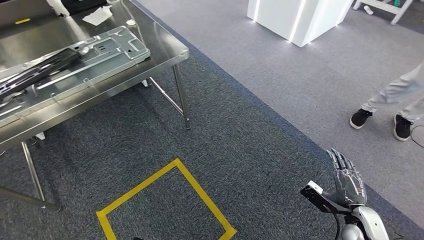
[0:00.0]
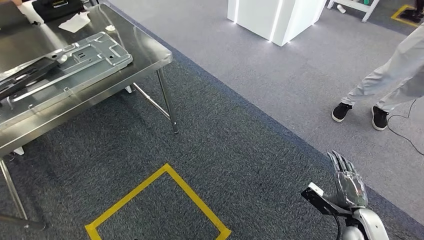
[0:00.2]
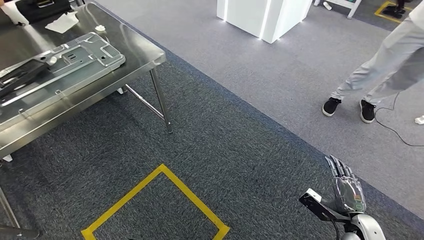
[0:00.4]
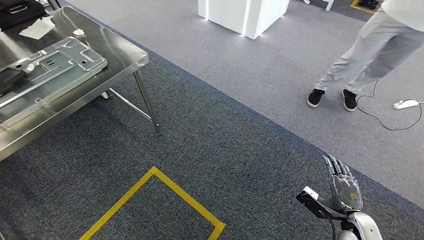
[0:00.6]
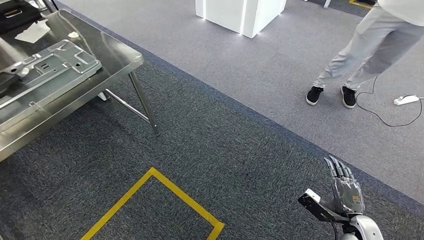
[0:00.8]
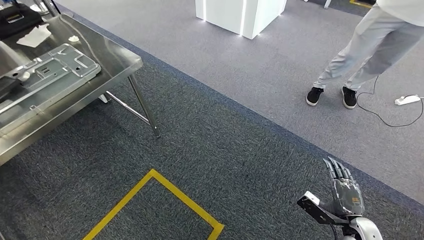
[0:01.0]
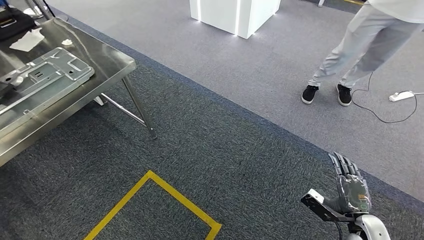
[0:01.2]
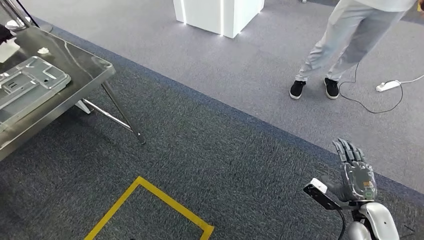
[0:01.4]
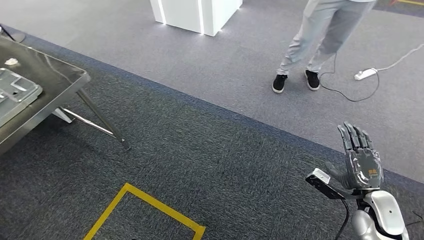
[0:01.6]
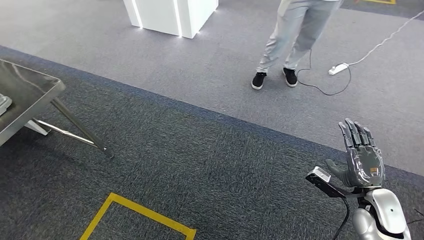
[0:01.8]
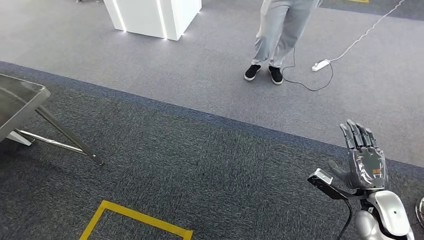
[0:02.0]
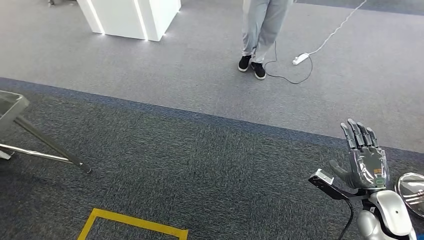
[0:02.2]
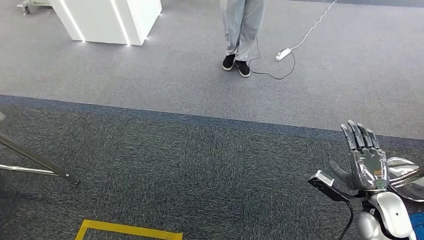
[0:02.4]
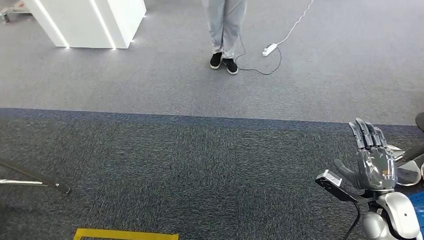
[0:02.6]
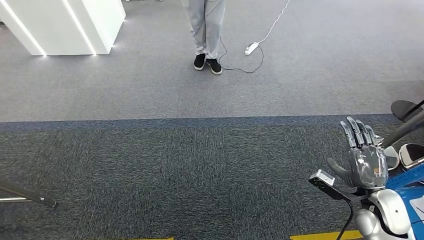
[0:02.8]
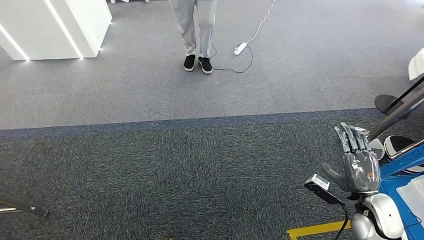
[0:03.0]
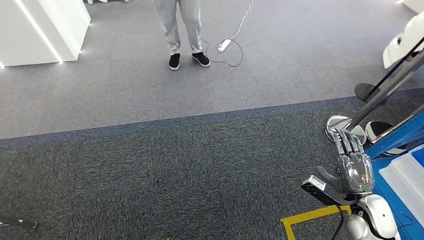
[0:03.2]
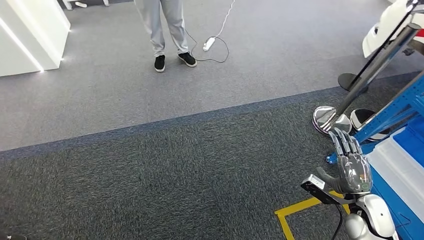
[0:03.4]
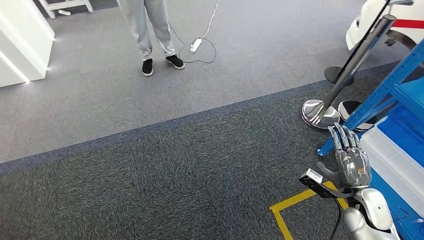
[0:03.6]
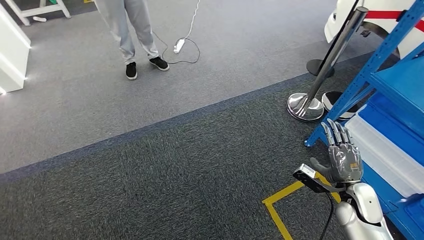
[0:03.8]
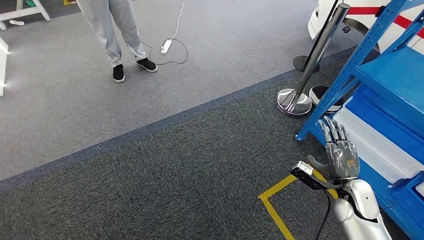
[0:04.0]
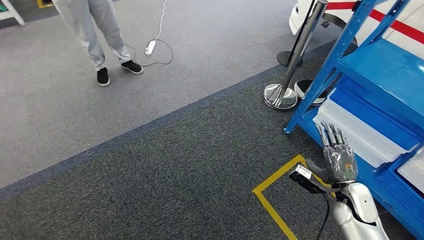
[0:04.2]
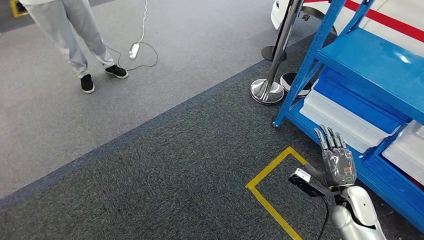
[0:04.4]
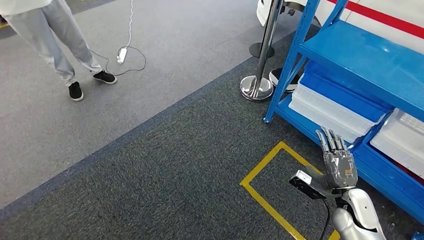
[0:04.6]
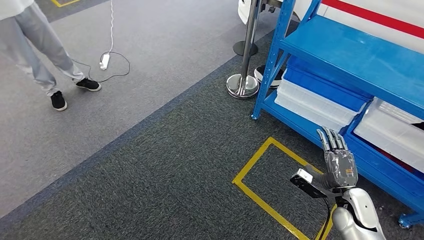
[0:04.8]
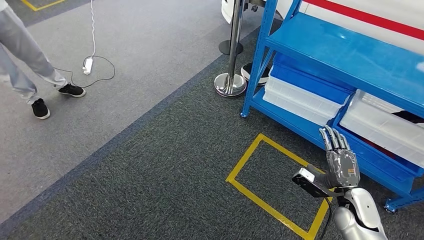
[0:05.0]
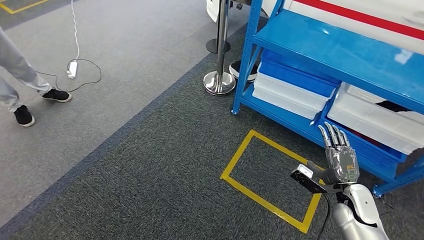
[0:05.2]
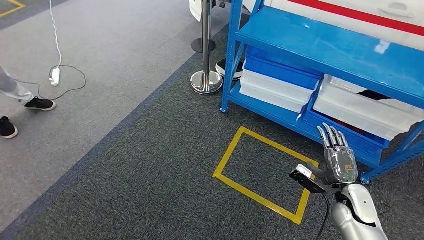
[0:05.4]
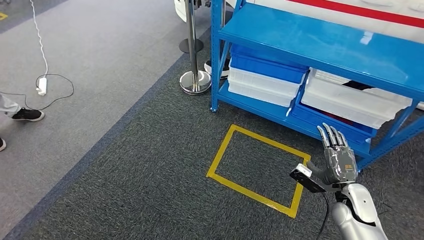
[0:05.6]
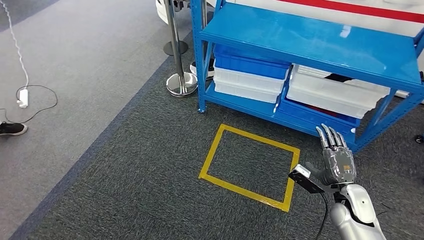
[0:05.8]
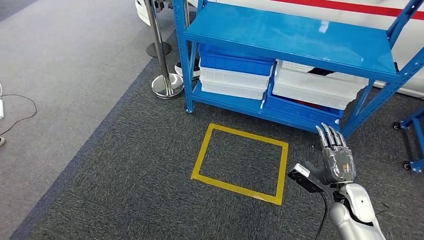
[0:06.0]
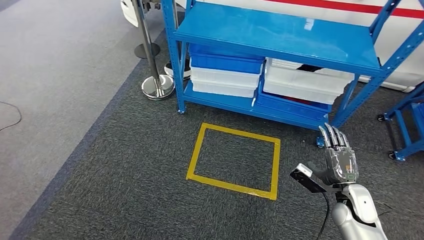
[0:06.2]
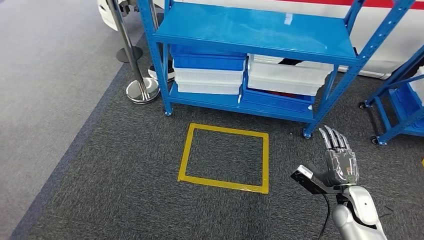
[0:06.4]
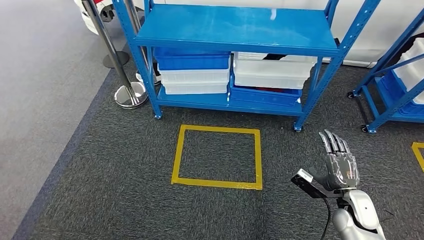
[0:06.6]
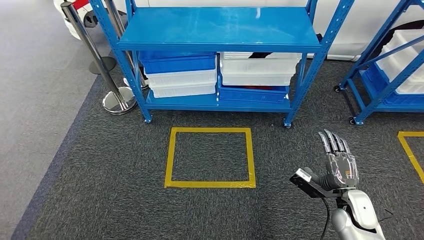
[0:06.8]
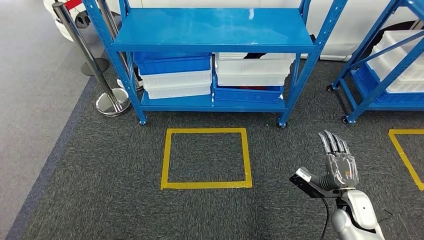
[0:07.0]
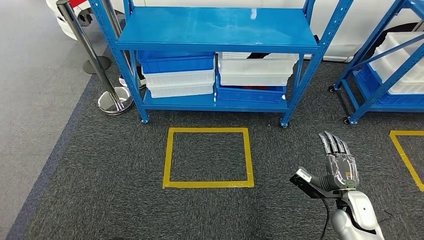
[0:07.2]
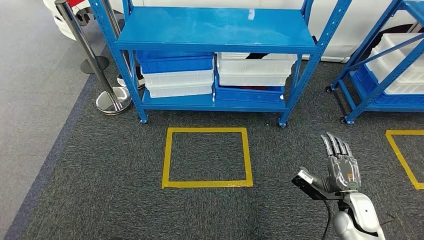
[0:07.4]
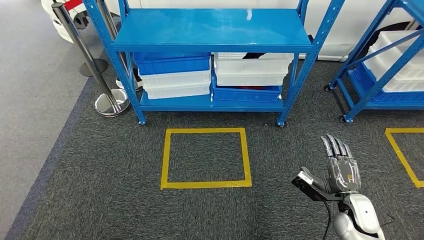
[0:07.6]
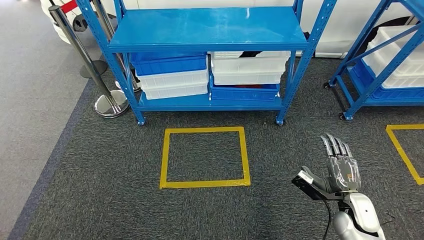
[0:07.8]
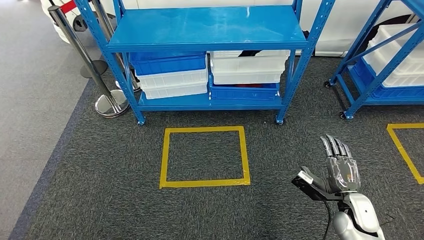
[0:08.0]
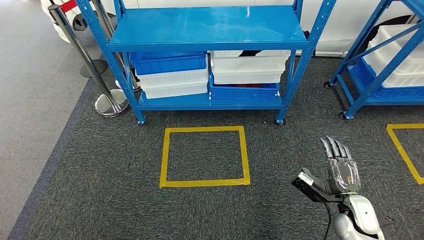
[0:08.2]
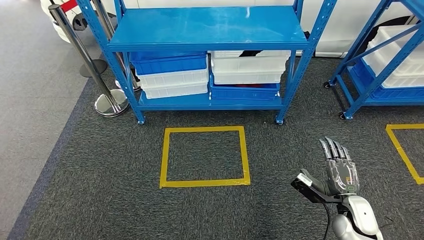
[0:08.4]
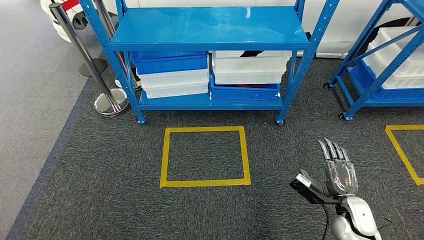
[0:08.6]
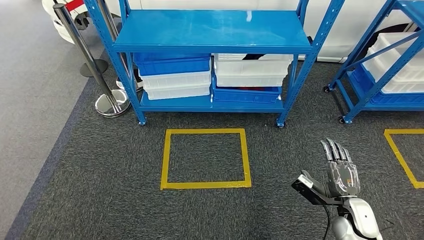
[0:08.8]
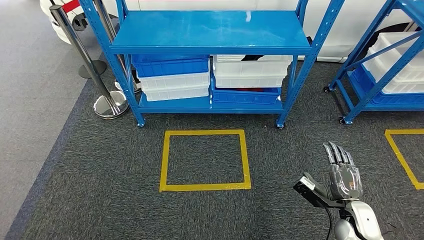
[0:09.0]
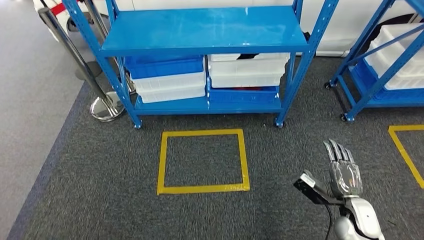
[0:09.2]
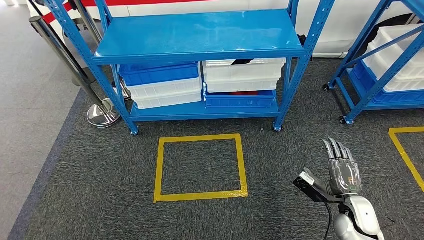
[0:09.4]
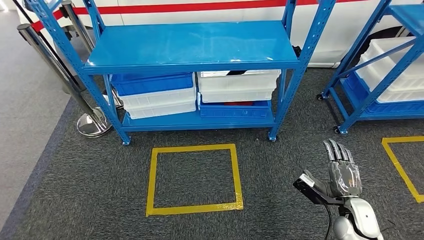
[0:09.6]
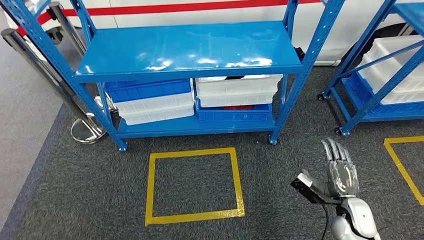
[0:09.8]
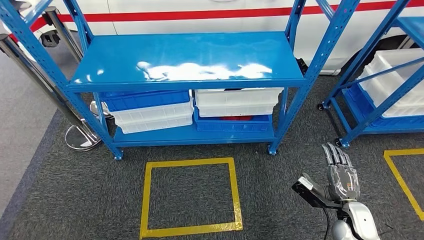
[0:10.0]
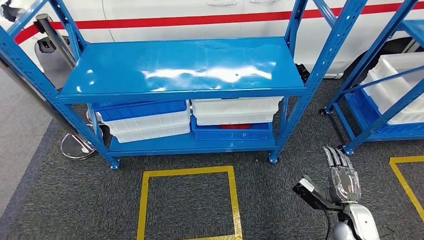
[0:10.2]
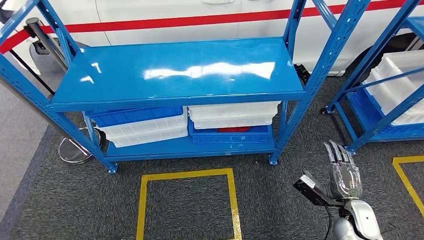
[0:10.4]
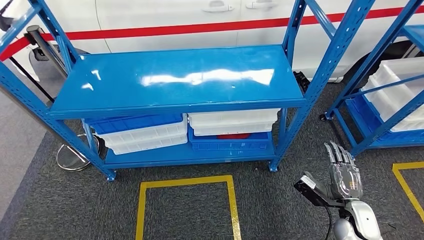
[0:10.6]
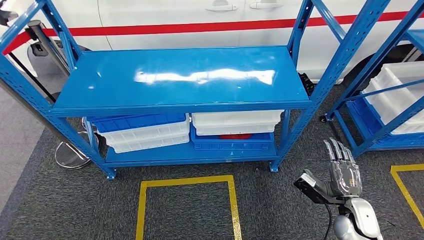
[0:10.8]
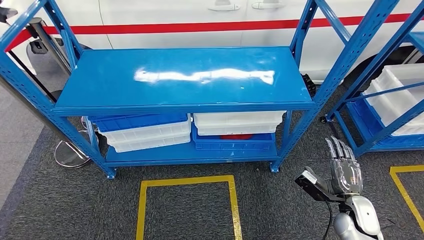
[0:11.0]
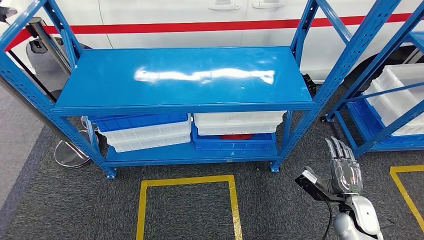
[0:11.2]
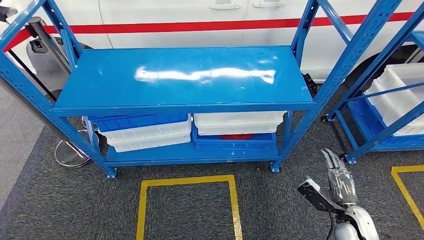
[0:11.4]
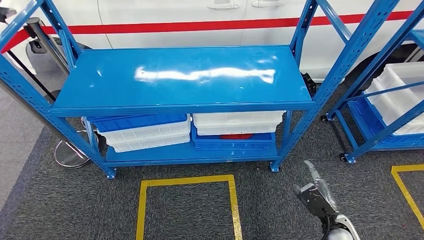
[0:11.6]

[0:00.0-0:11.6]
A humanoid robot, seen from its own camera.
Step, 0:00.0 to 0:11.6: Move to the initial position of the shelf.
0:07.2 to 0:08.8: There are only small adjustments of the hands.
